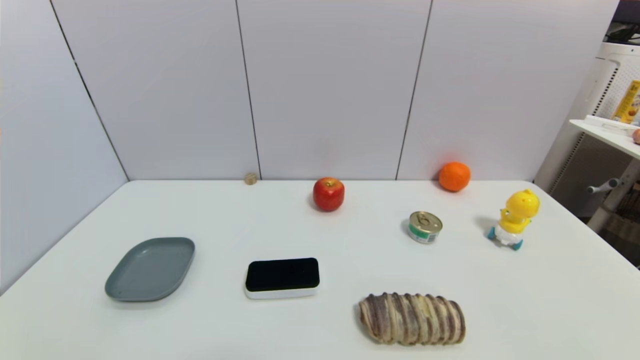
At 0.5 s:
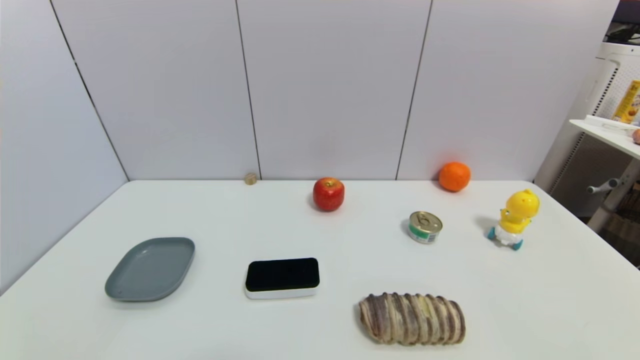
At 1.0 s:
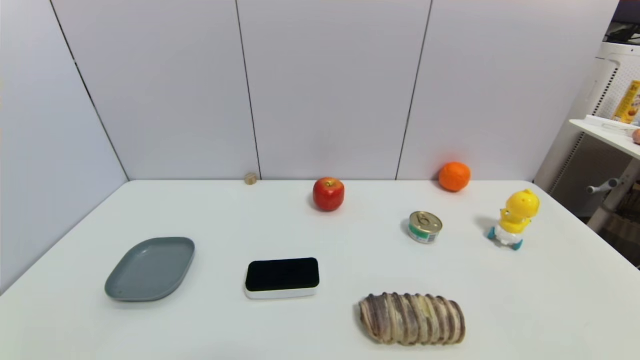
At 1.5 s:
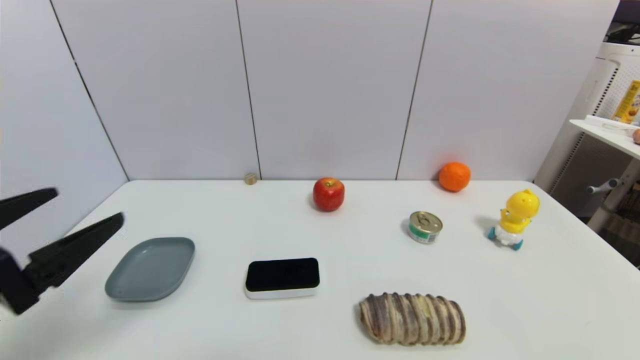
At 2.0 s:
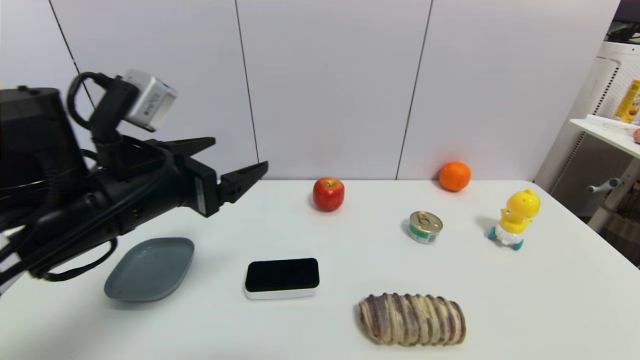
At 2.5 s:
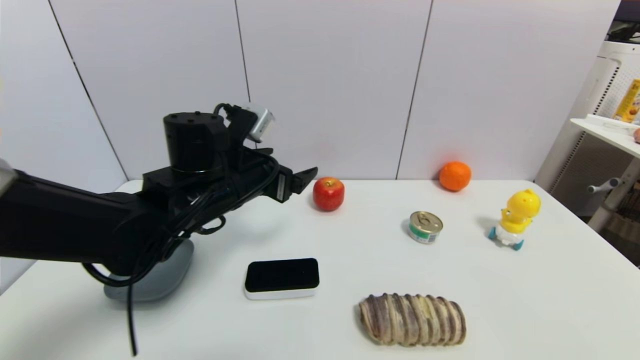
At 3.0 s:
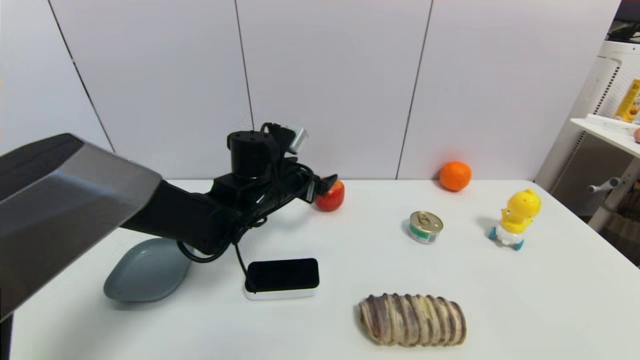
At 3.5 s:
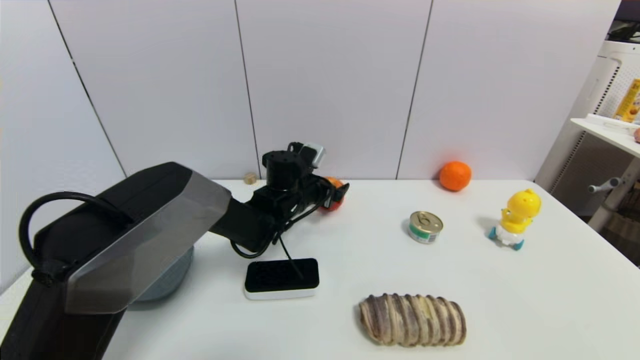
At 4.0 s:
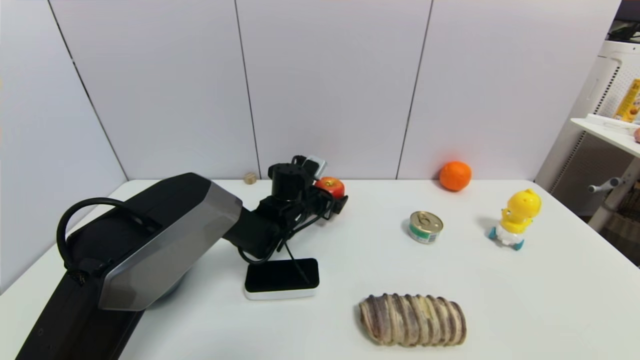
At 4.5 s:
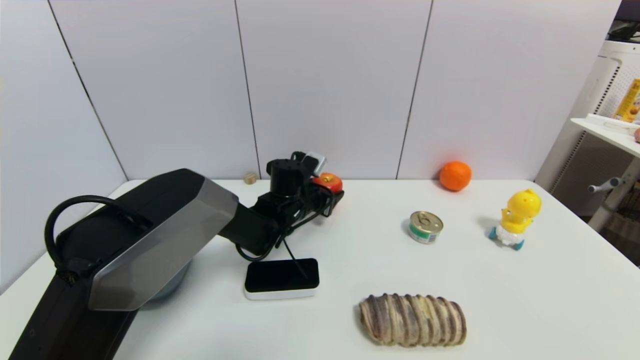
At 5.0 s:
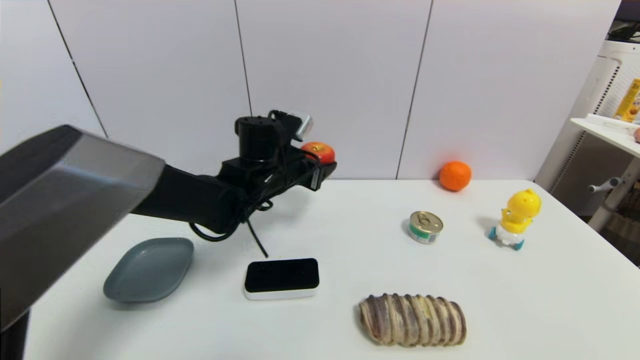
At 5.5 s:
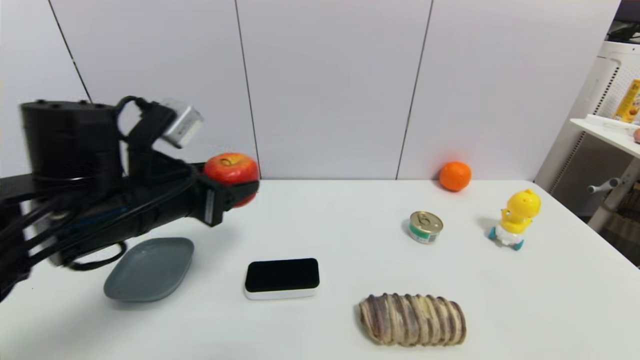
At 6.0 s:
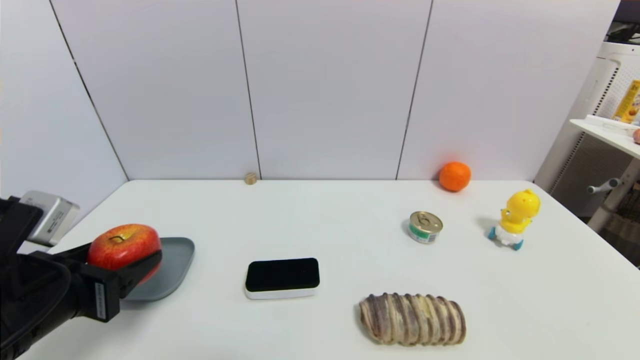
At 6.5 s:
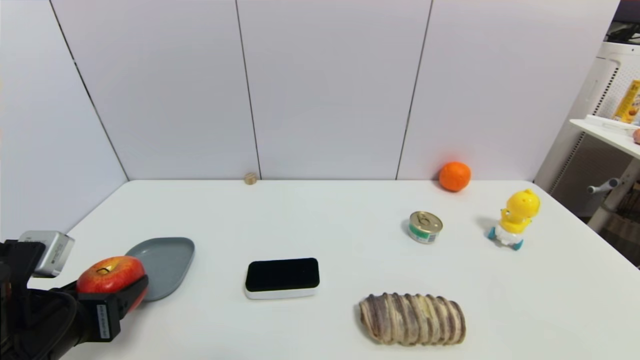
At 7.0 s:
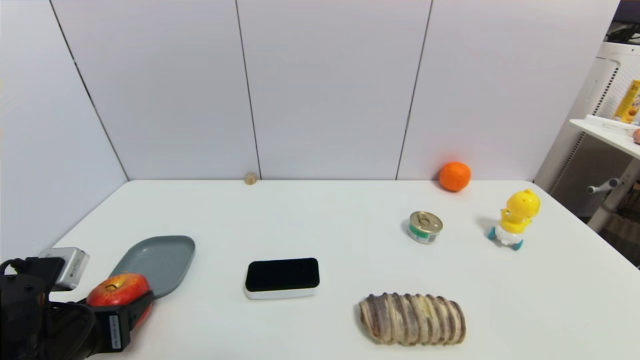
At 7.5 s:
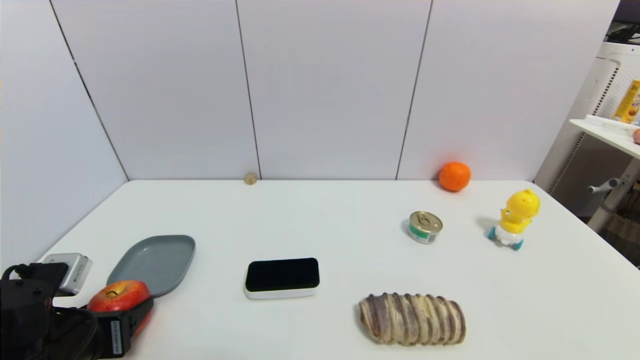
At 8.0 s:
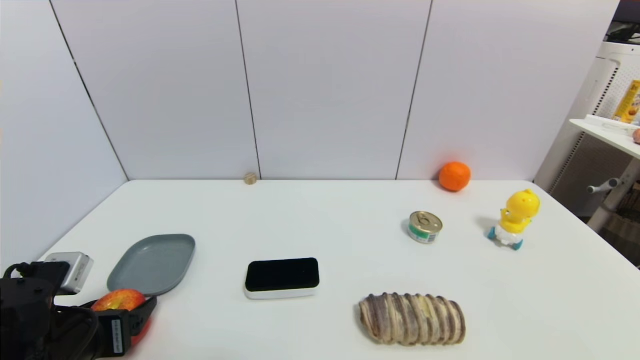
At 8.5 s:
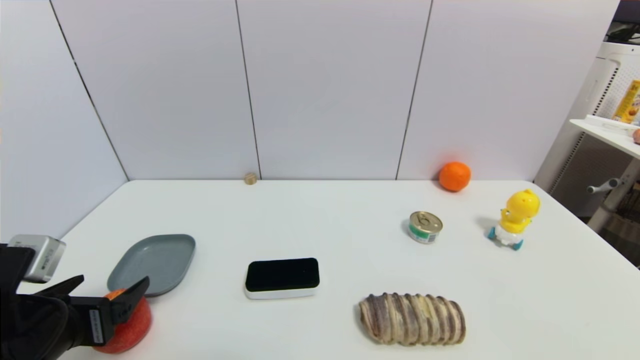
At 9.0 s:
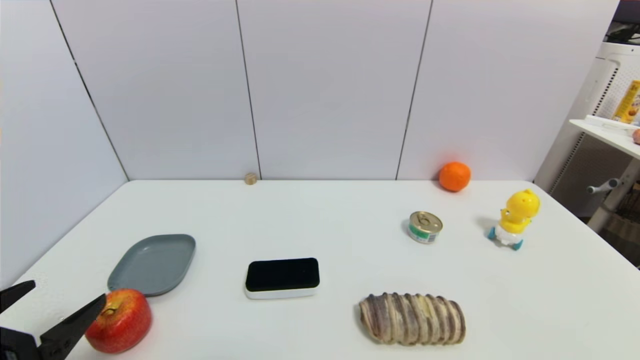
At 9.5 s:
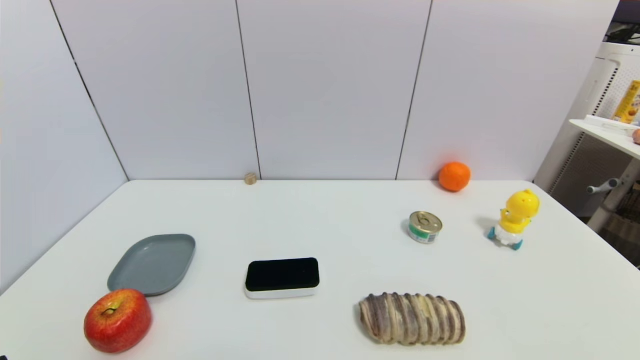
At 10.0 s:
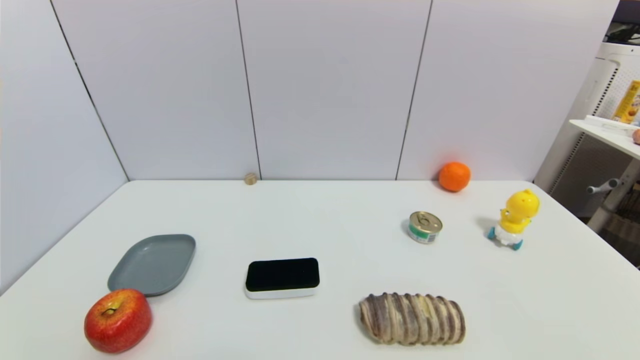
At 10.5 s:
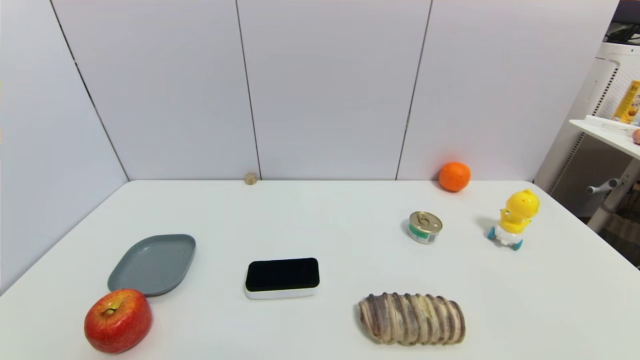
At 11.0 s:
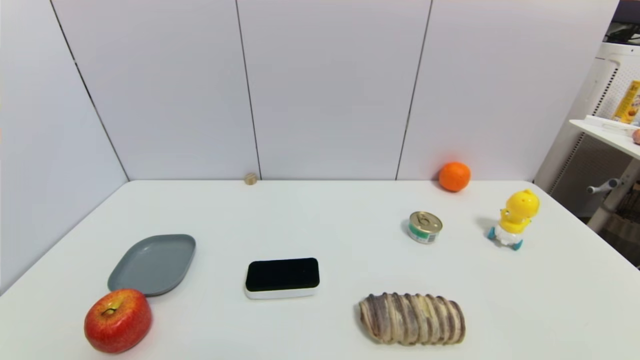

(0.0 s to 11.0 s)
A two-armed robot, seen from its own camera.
Task of the whole recording: put the apple in the designated position.
Step, 1.5 s - 4.0 s: Grasp the apple with left gripper.
Step, 4.5 s - 9.0 s: Place the apple on the table with left gripper.
0.0 s - 2.0 s: The left gripper goes roughly 30 cm forward, upward and to the right.
2.0 s - 3.5 s: The left gripper moves forward, downward and to the right, approximately 30 cm.
3.5 s - 5.5 s: The left gripper travels backward, to the left and upward by roughly 30 cm, and closes.
5.5 s - 7.5 s: The left gripper moves downward, backward and to the left, about 15 cm.
7.5 s - 9.0 s: The left gripper moves backward and upward, roughly 10 cm, and opens up.
9.0 s - 11.0 s: The left gripper goes roughly 10 cm downward and backward.

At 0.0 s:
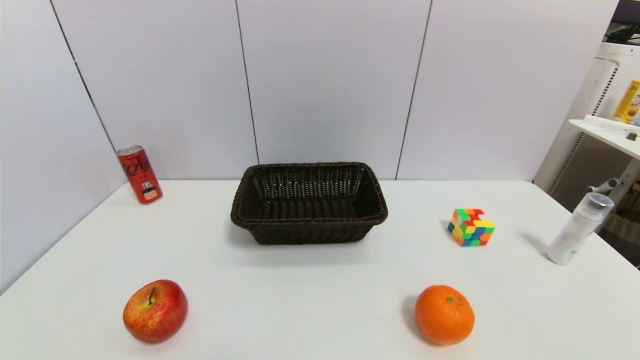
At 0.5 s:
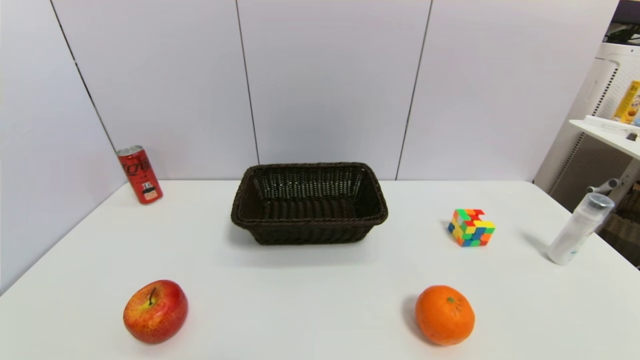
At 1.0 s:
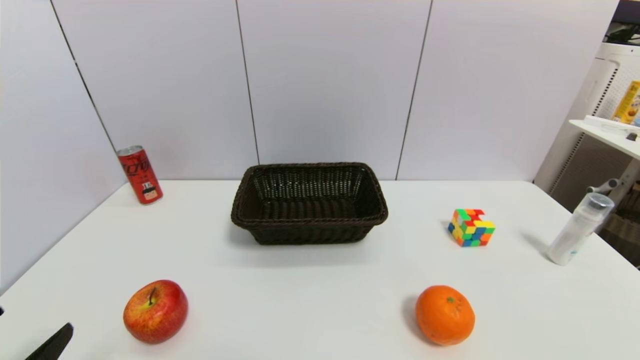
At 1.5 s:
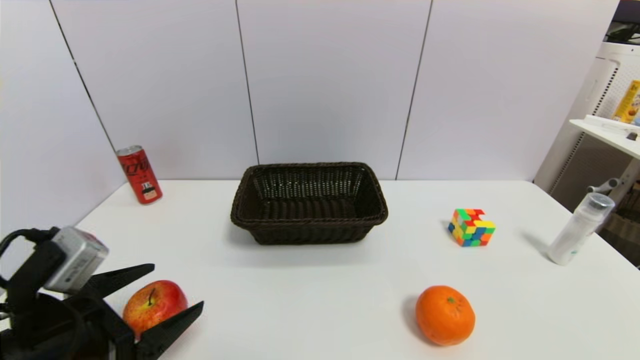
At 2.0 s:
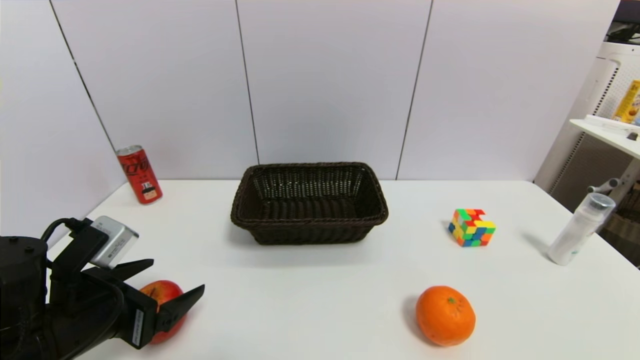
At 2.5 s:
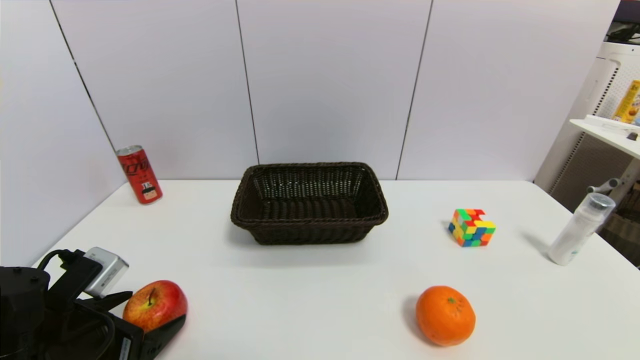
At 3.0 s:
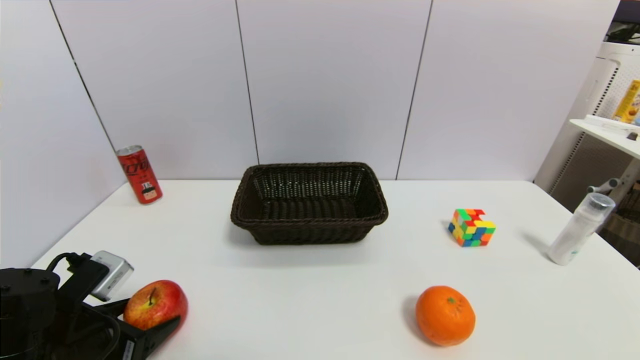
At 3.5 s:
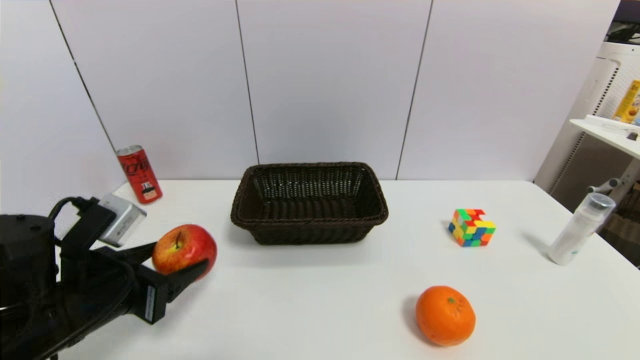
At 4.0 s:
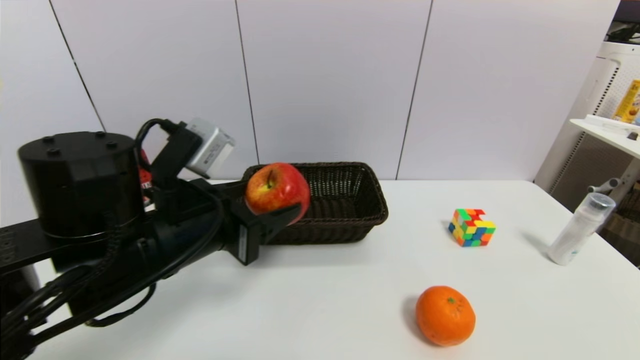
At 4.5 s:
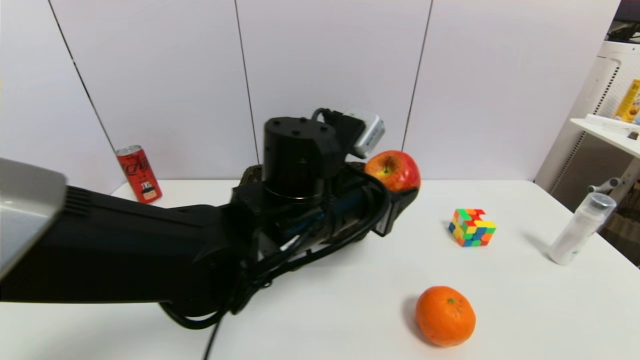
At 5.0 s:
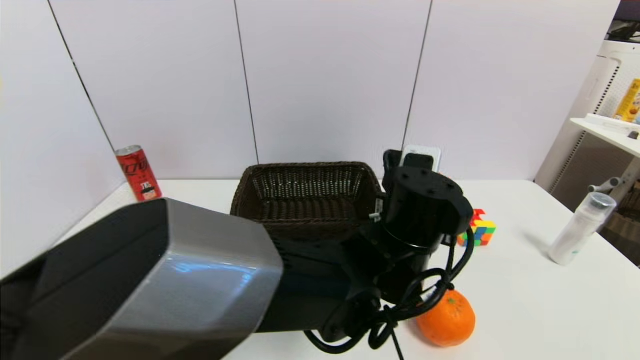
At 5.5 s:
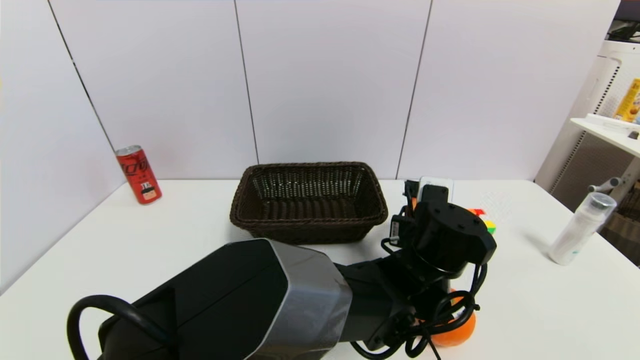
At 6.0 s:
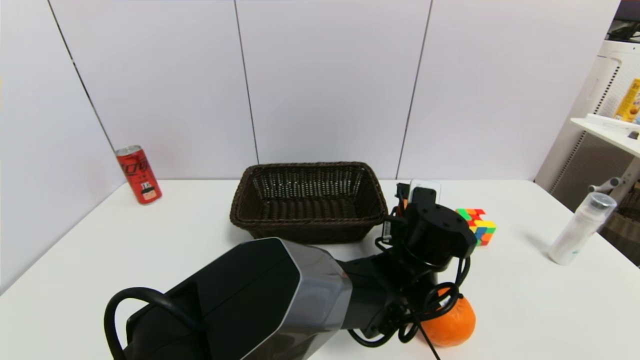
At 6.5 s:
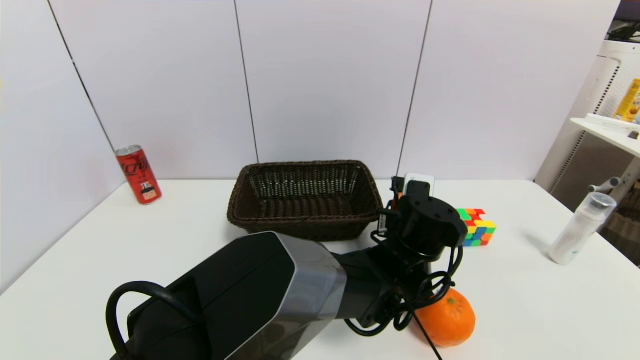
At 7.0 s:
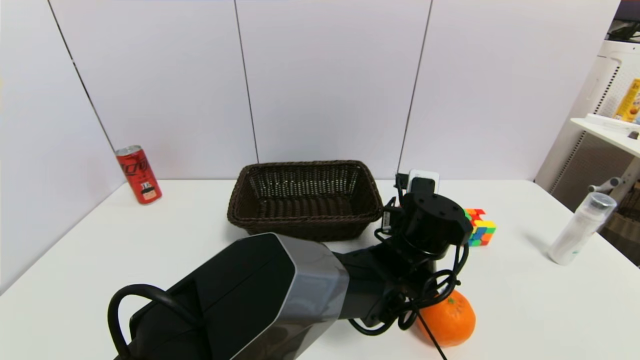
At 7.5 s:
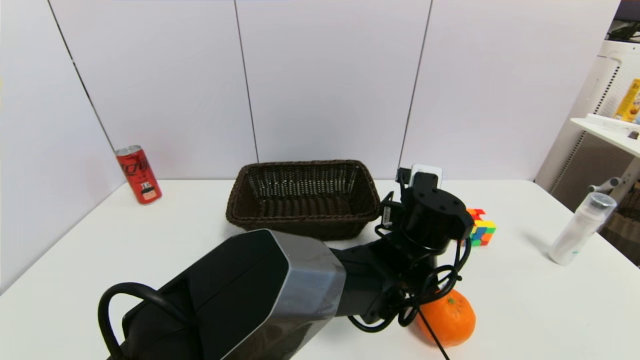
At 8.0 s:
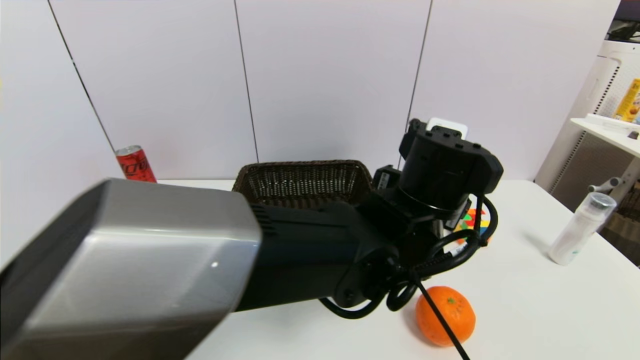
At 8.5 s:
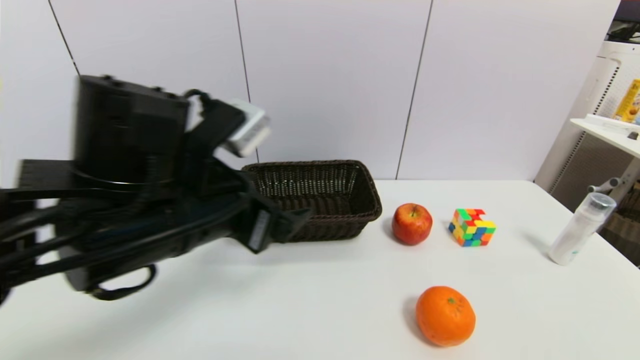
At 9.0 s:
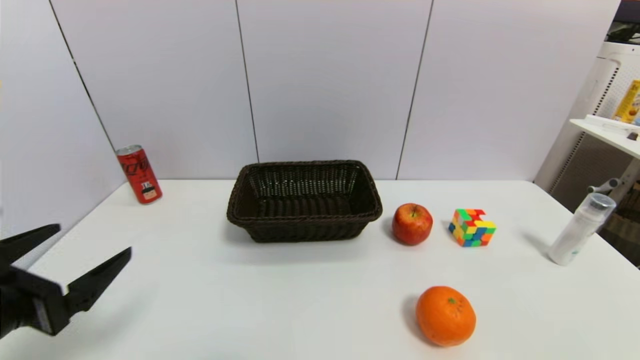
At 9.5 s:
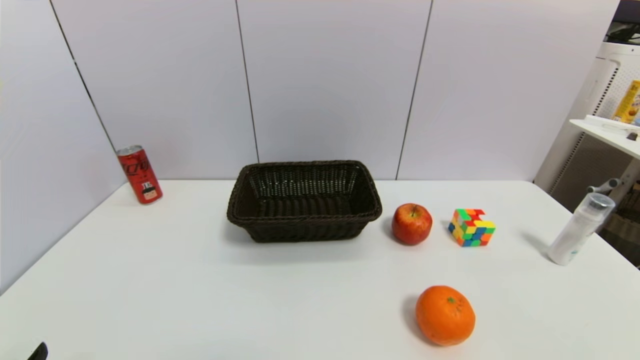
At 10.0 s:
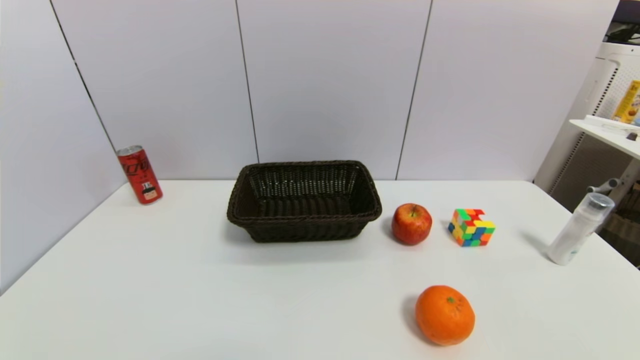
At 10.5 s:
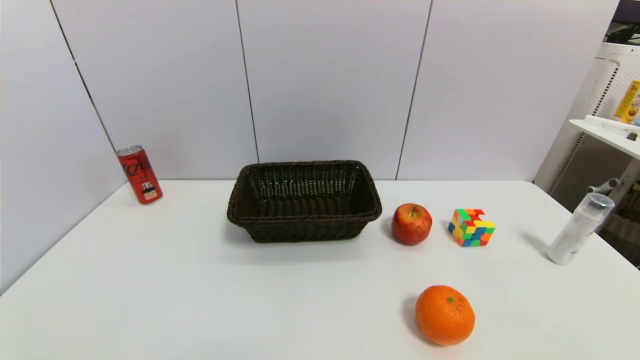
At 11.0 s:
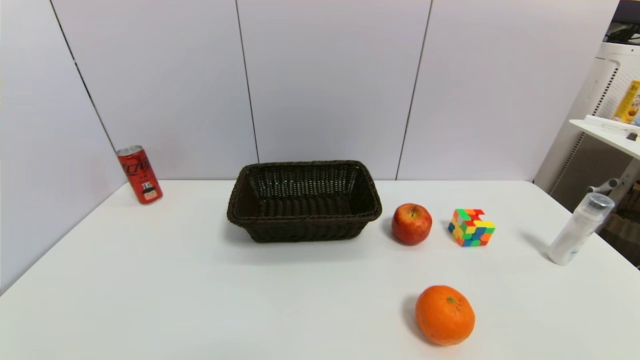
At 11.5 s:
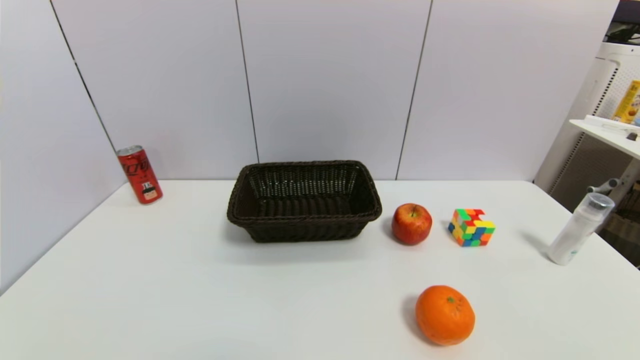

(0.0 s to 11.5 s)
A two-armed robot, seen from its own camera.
Task of the whole recording: put the apple in the designated position.
Step, 1.0 s - 3.0 s: Grasp the apple with left gripper.
Step, 3.5 s - 7.5 s: Place the apple on the table with left gripper.
0.0 s - 2.0 s: The left gripper heads forward, covering approximately 15 cm.
2.0 s - 4.0 s: The left gripper shifts approximately 15 cm to the right and upward, and closes its fingers.
4.0 s - 6.0 s: The left gripper moves to the right and downward, roughly 30 cm.
6.0 s - 7.5 s: The left gripper opens its fingers.
7.5 s - 9.5 s: The left gripper travels to the left and backward by about 50 cm.
